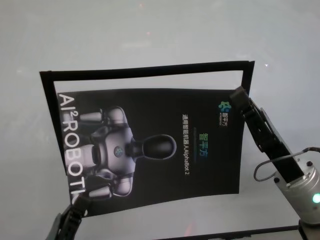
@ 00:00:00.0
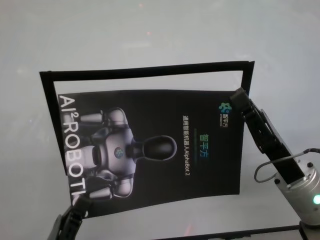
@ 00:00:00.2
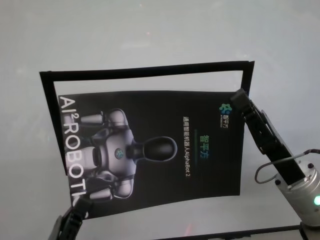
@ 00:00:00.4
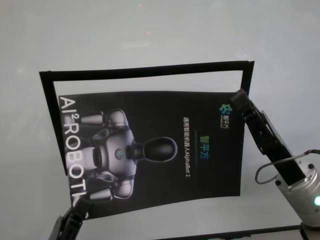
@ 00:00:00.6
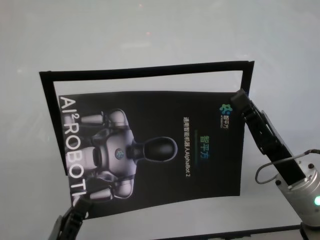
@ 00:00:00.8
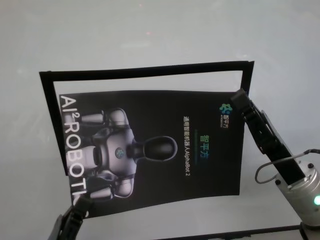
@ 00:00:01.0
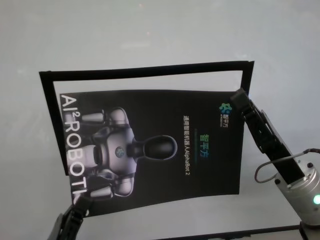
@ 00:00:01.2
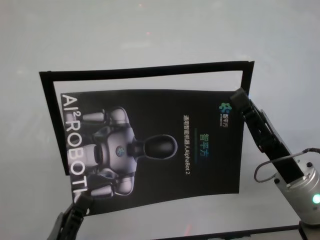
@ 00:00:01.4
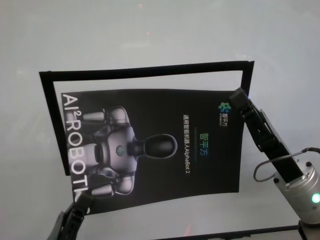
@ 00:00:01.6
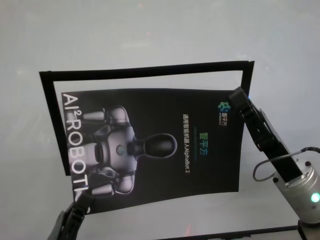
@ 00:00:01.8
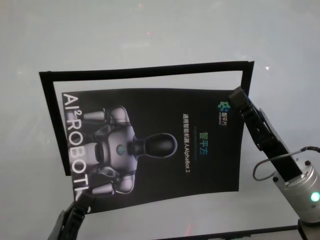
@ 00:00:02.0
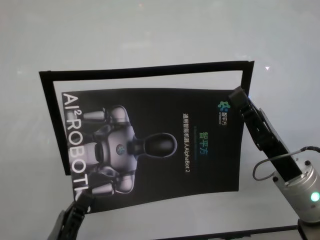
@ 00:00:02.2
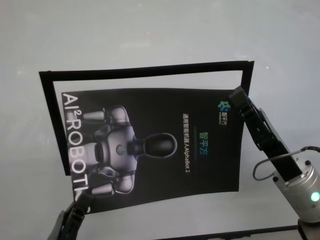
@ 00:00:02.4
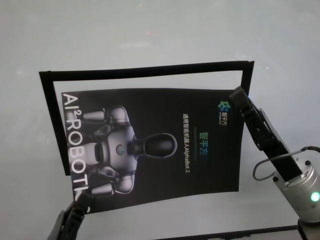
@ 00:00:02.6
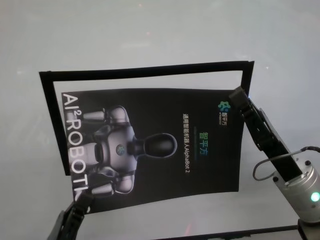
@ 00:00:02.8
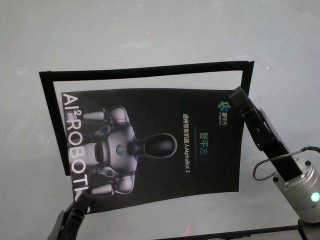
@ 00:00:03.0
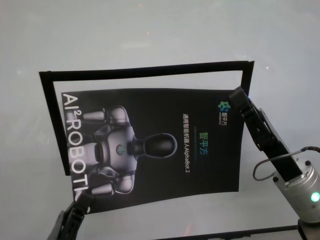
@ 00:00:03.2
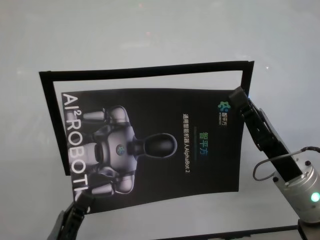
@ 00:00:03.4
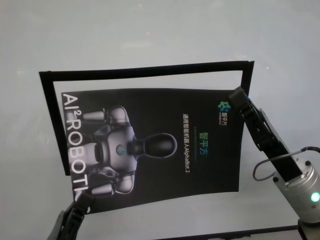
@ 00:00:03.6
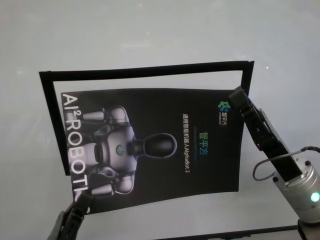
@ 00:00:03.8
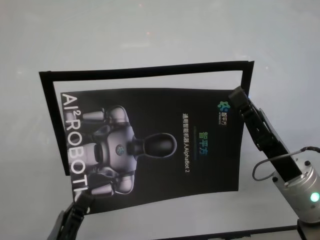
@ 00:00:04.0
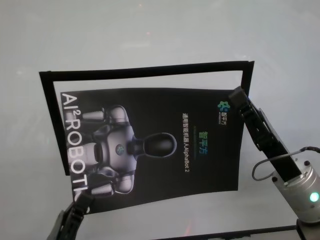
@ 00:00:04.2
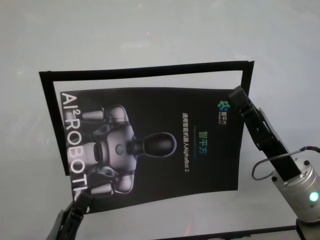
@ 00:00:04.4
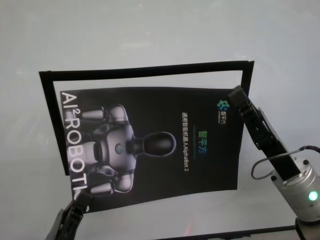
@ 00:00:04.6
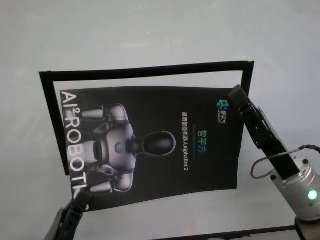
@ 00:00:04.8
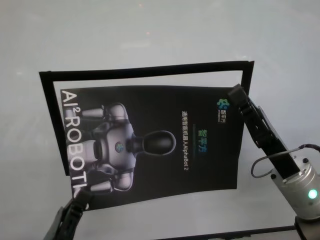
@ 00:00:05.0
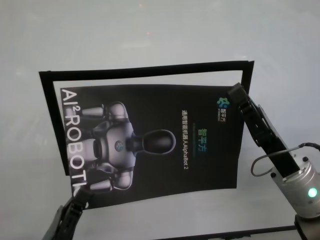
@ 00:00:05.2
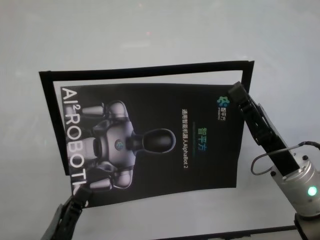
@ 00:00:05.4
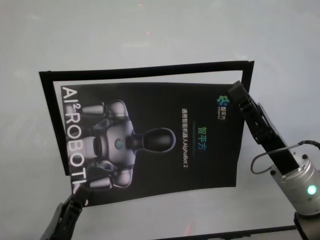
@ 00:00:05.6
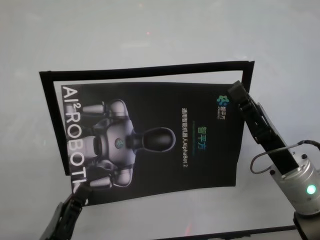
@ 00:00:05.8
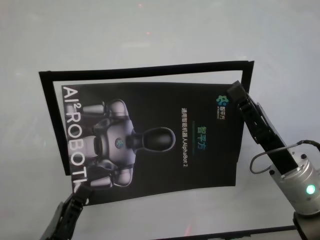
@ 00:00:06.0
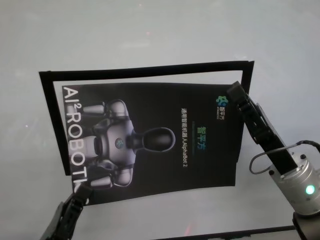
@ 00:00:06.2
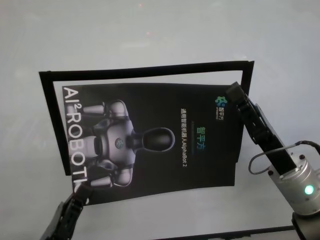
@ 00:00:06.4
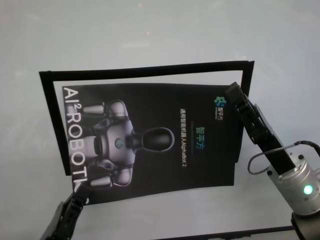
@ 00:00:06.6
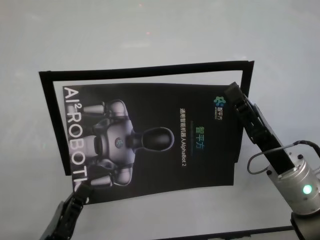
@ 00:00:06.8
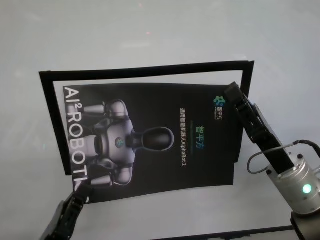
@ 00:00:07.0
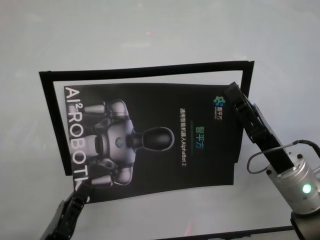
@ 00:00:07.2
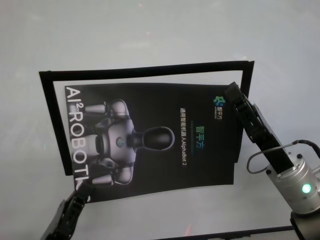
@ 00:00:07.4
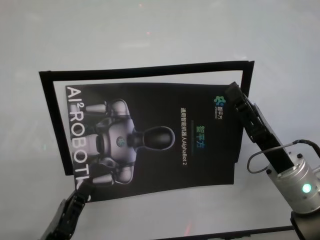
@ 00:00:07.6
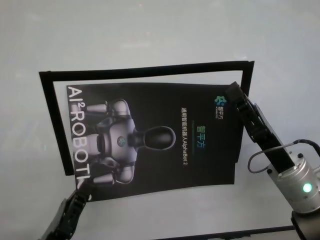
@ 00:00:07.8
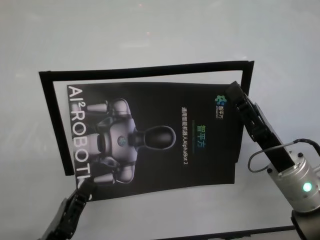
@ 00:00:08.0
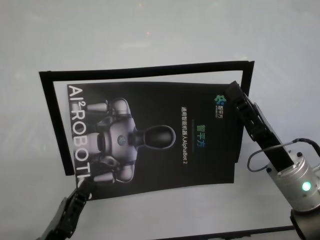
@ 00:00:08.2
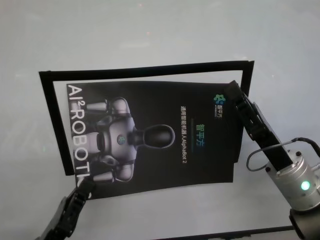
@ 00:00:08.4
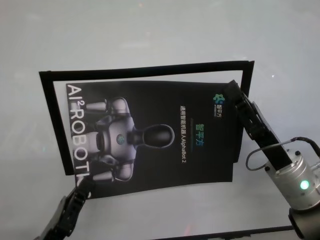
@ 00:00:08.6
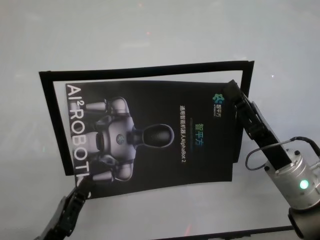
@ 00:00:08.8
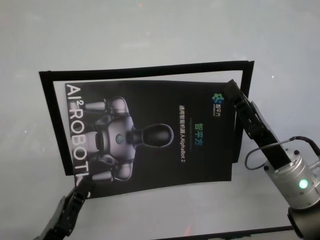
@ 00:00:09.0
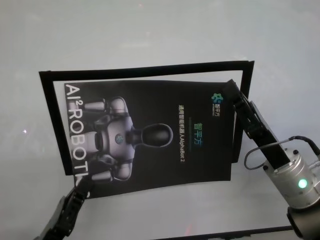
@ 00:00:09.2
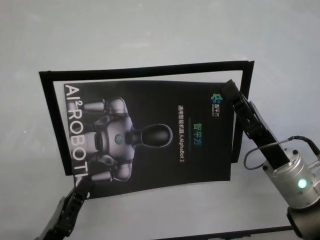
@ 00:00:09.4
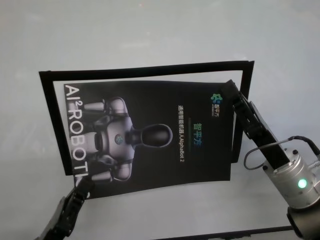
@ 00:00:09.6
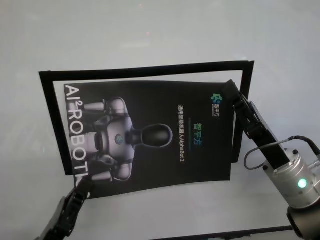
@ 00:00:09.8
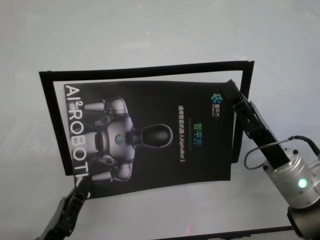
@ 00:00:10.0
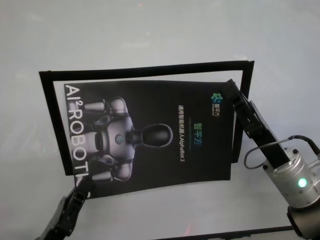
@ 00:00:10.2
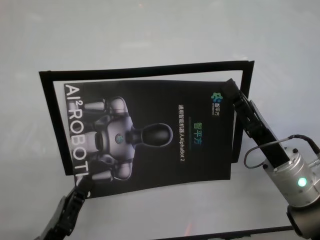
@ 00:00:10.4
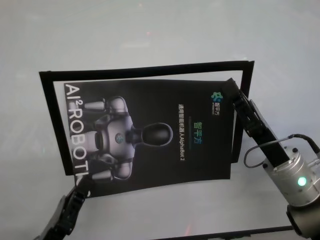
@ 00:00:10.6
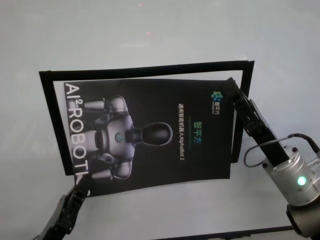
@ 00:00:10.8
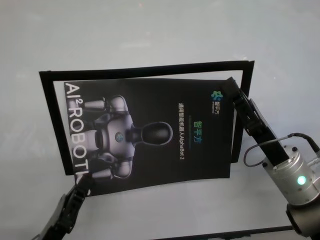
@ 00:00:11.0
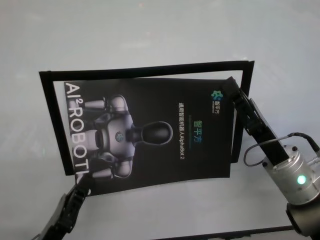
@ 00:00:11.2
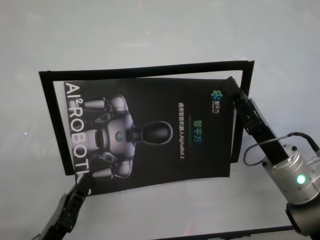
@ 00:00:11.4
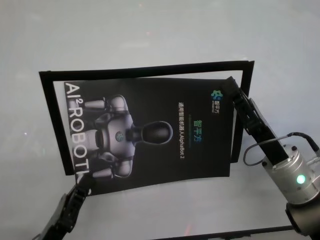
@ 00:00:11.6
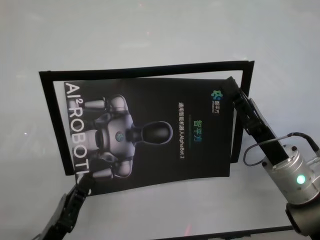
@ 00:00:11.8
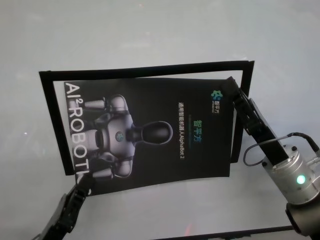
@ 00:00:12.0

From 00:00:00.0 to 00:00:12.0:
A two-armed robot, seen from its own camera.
Task of the whole recording: stick the poster on the table by hand.
Step, from 00:00:00.0 to 00:00:06.8: Stick the advertisement in the top-right corner area with both grippers.
